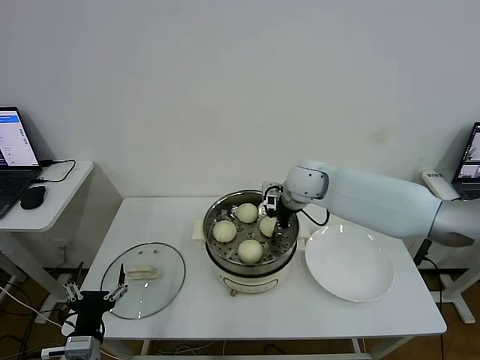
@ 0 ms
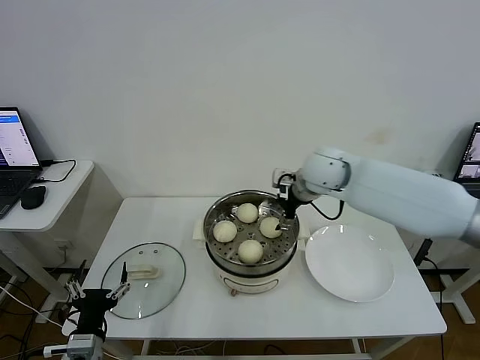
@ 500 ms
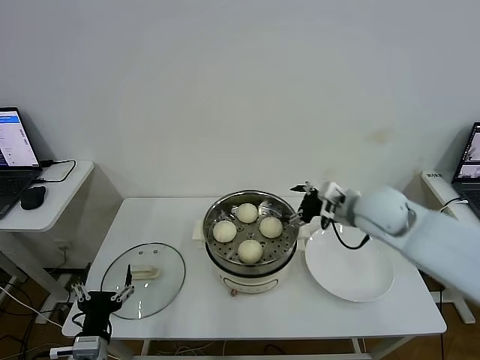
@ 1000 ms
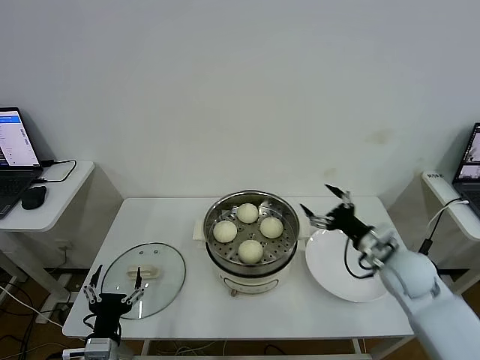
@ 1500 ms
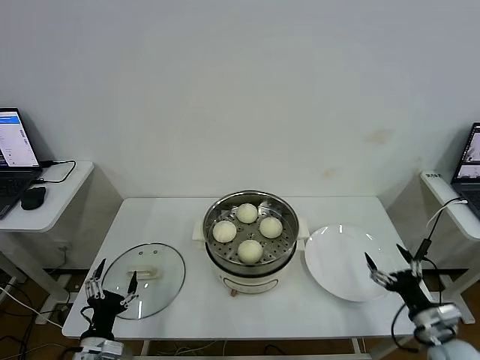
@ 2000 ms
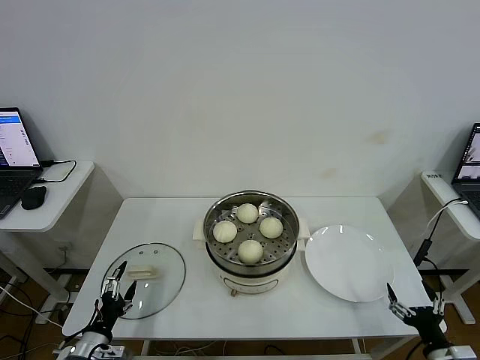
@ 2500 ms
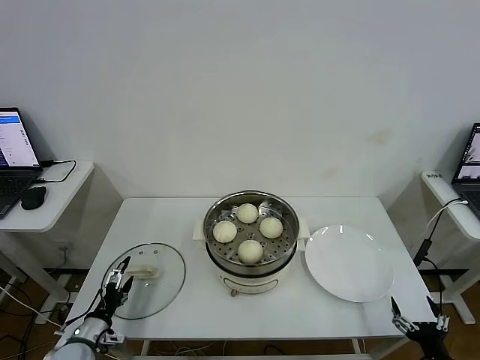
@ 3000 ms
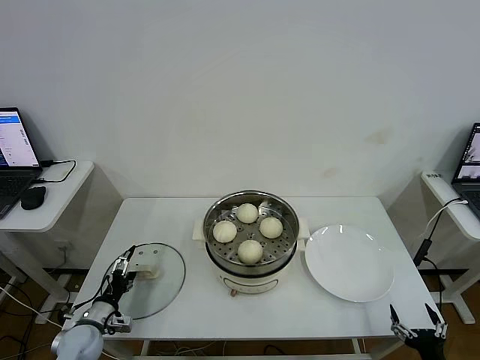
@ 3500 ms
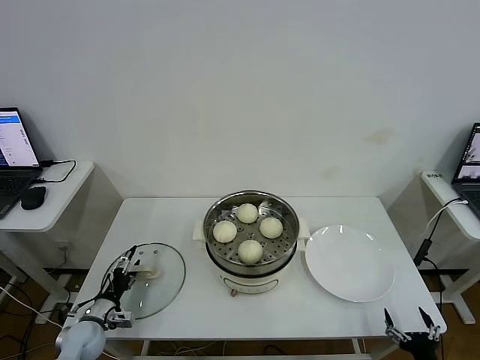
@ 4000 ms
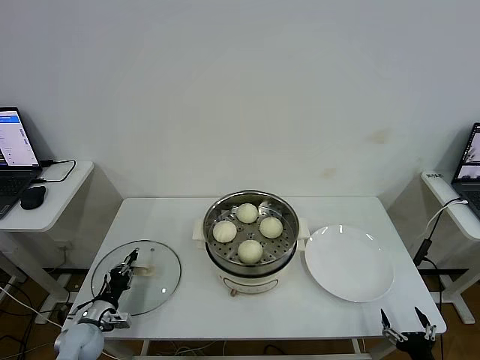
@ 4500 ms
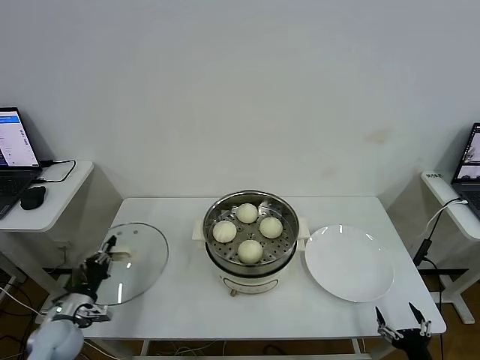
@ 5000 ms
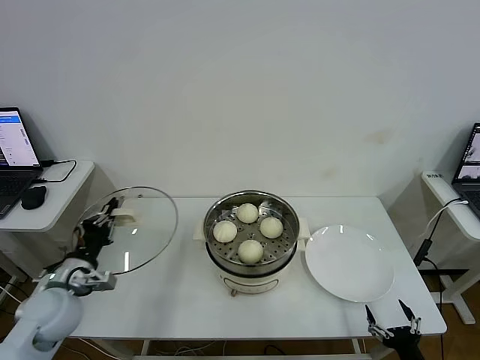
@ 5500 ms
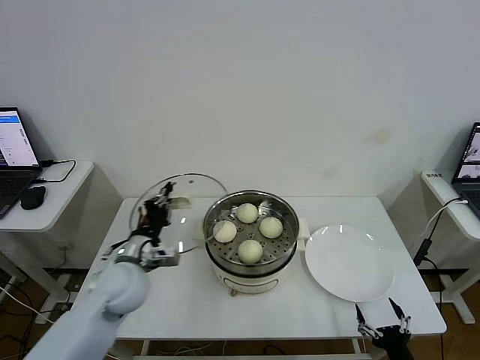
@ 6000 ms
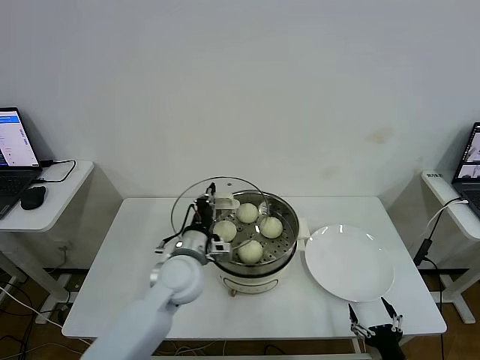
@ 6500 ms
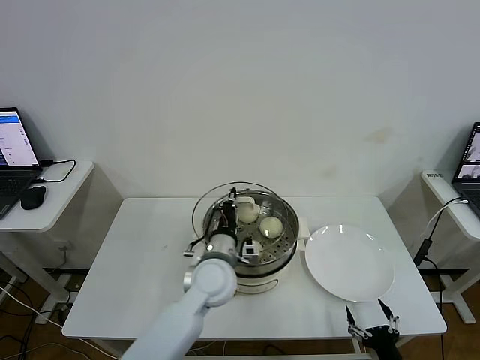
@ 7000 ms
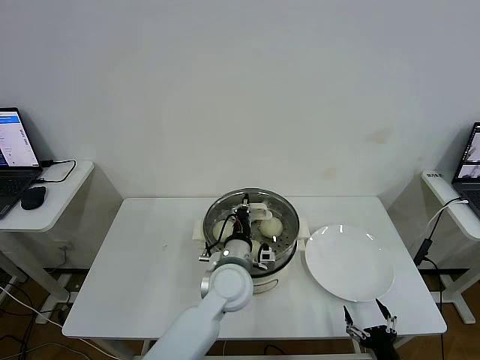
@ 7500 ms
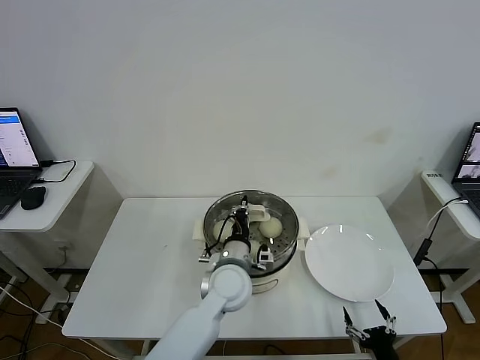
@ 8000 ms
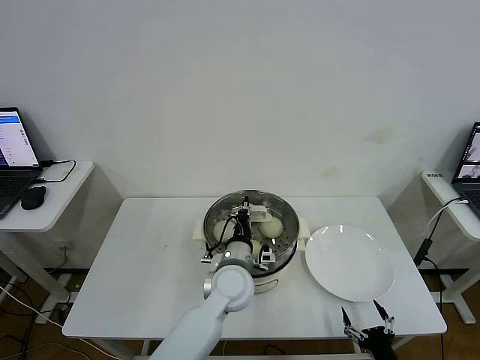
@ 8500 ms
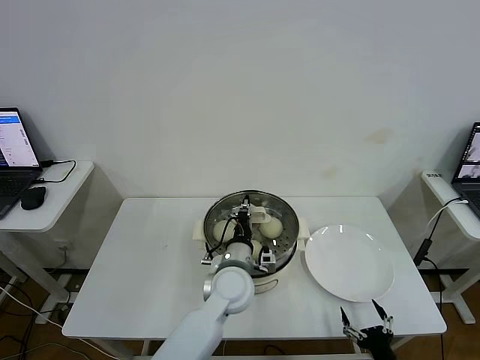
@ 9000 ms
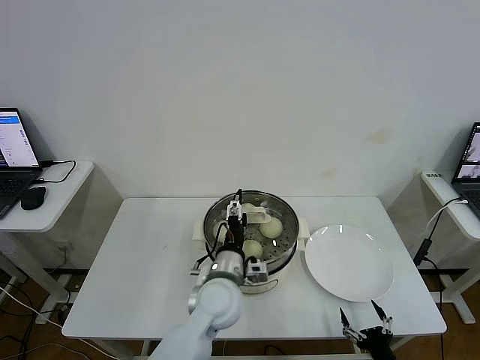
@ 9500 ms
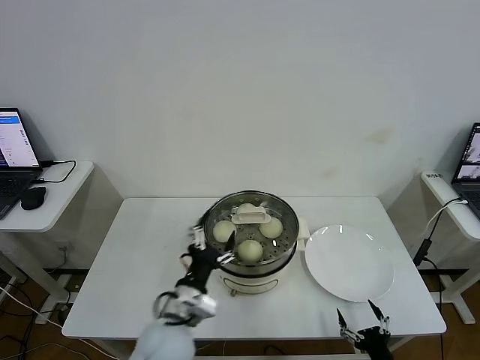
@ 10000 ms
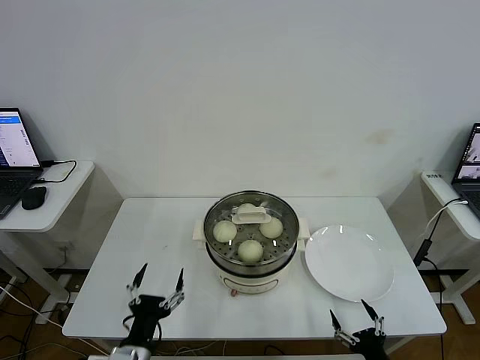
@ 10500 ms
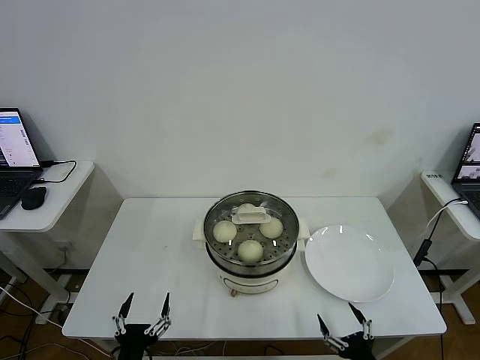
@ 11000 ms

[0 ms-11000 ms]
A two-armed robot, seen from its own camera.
Step, 1000 ms to 4500 ms: Grasp the pot lid with left gripper.
Step, 5000 ms to 9500 ms: Place the pot lid on the steamer with left gripper.
0 ms to 2000 ms: The right gripper goes about 50 cm backward, to the right and downward, and opens its fingers.
2000 ms to 3500 ms: The left gripper heads forward, to the left and downward, covering roughly 15 cm, while the right gripper goes approximately 10 cm backward and downward.
3500 ms to 5500 ms: The left gripper travels upward by roughly 15 cm, and closes its fingers.
5500 ms to 7500 ms: The left gripper moves to the right, about 35 cm.
7500 ms to 9000 ms: The grippers make only small movements.
9000 ms to 11000 ms: The left gripper moves backward and to the left, some 35 cm, and opens its fingers.
